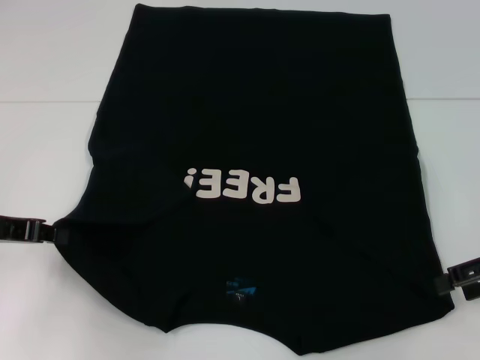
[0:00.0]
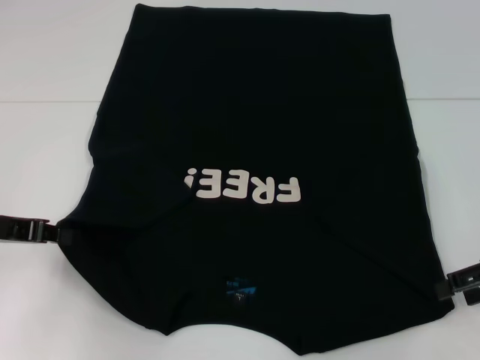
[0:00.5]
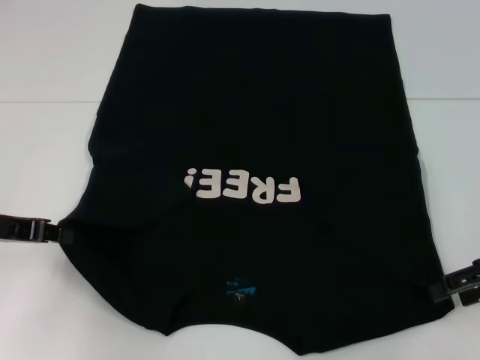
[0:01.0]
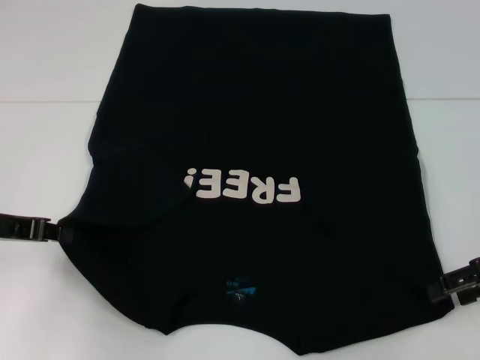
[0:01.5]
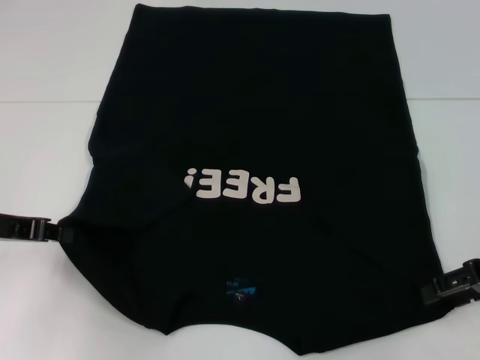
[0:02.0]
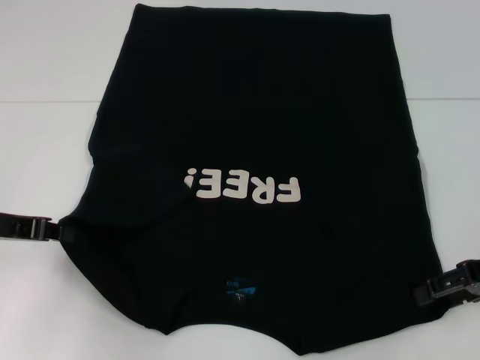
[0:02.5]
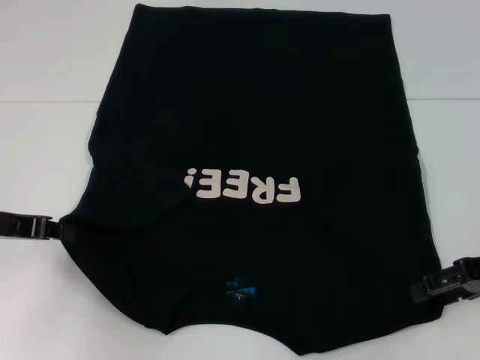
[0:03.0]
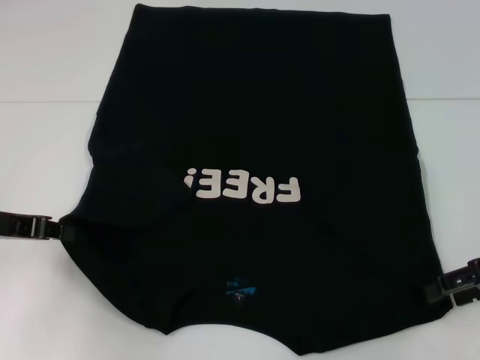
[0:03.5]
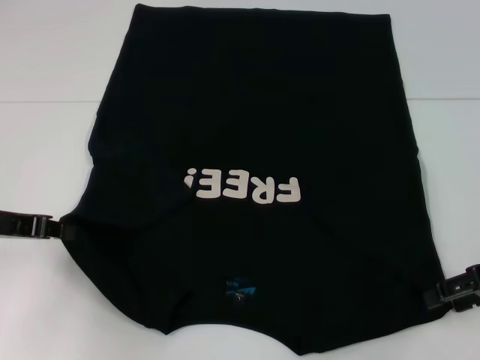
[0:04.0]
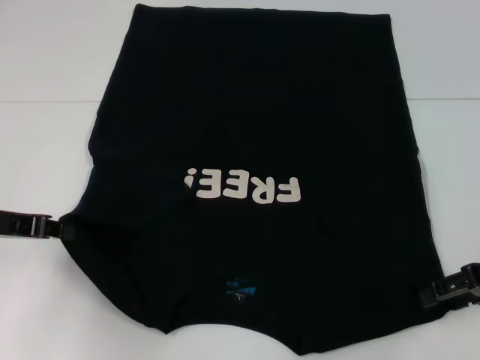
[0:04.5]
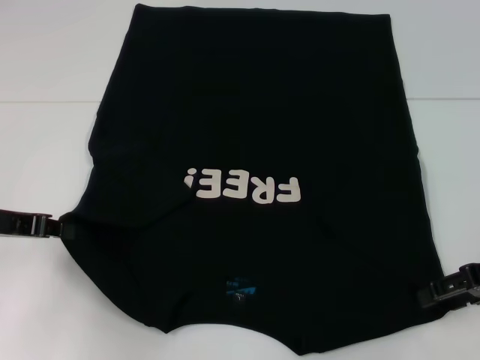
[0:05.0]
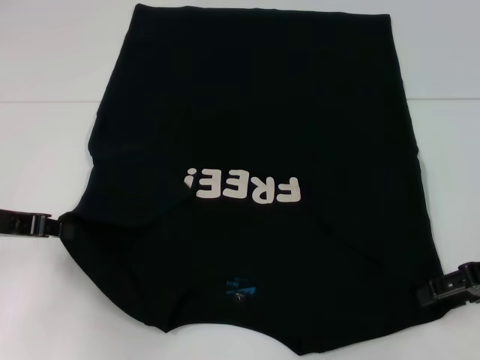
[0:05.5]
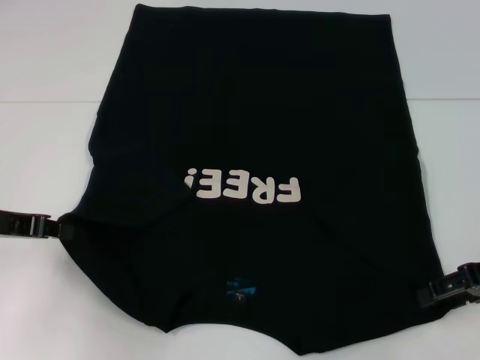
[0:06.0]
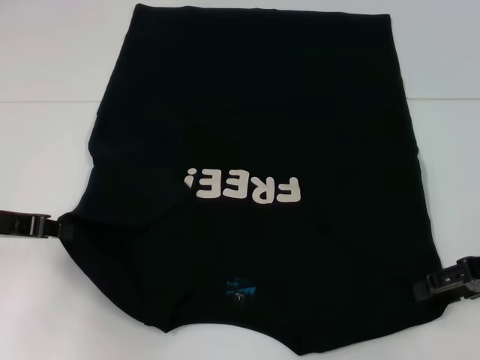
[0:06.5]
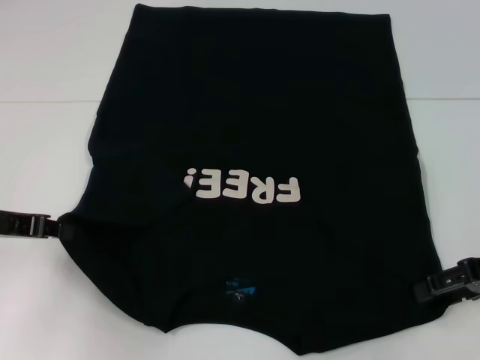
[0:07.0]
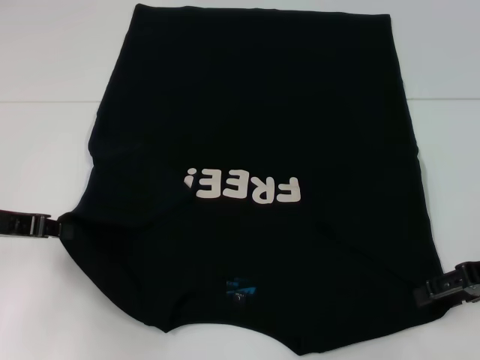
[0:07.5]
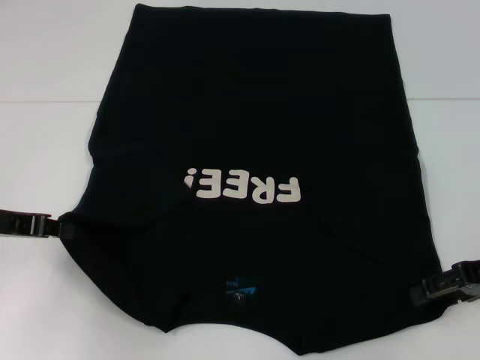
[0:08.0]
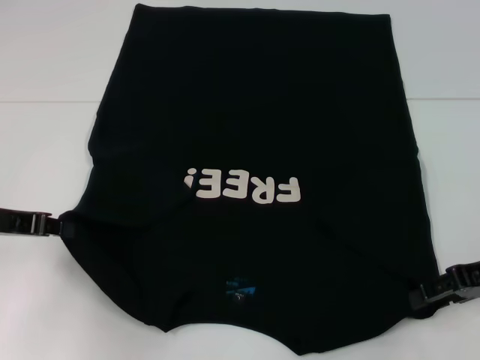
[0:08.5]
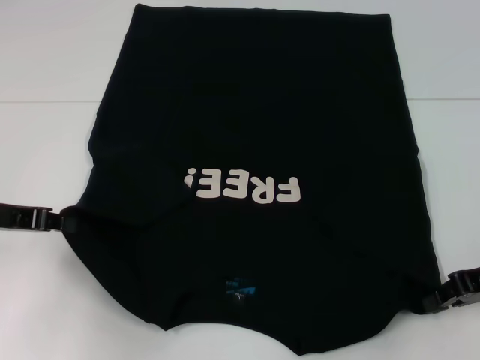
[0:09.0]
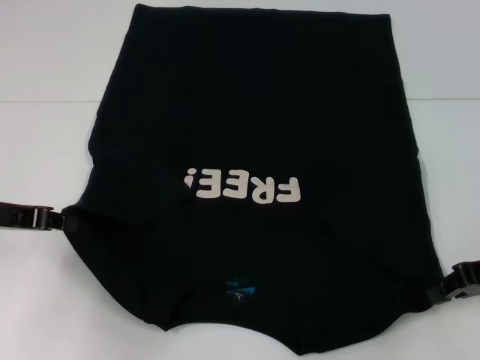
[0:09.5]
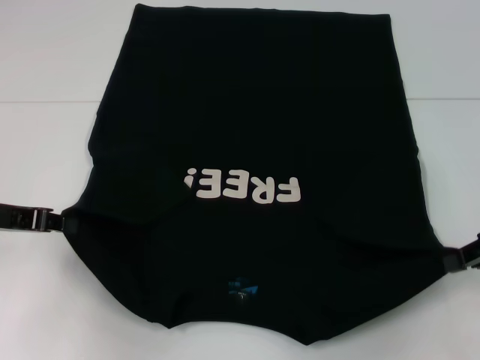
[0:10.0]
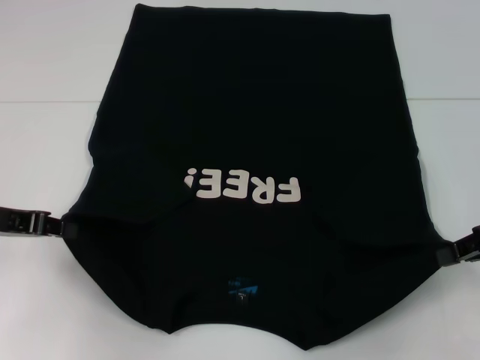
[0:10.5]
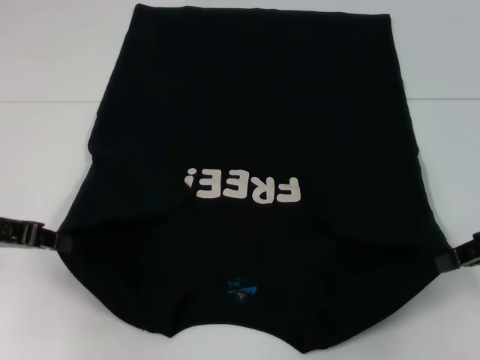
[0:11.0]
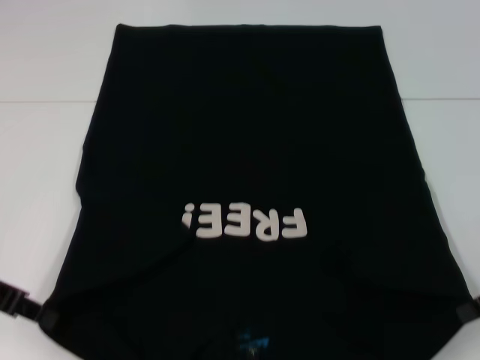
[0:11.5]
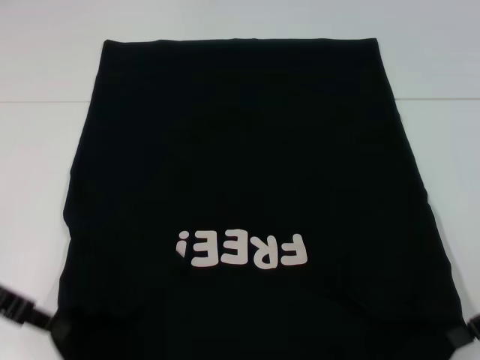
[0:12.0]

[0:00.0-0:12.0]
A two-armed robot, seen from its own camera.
Step, 0:00.0 to 0:09.5: Grab the bottom left corner with your left hand.
Step, 0:00.0 to 0:09.5: Grab the bottom right corner with your right hand.
0:00.0 to 0:02.0: The grippers move only a little.
0:02.0 to 0:08.0: Neither gripper changes place.
0:08.0 to 0:10.0: The right gripper closes its fingers.

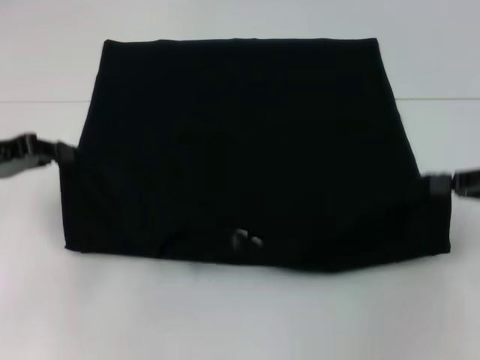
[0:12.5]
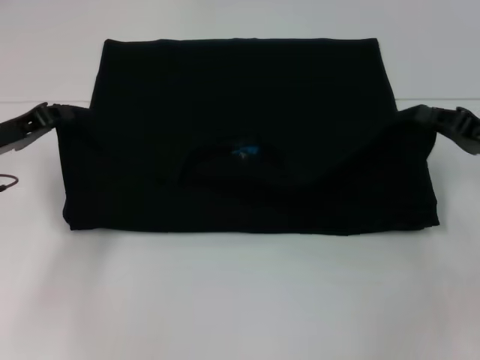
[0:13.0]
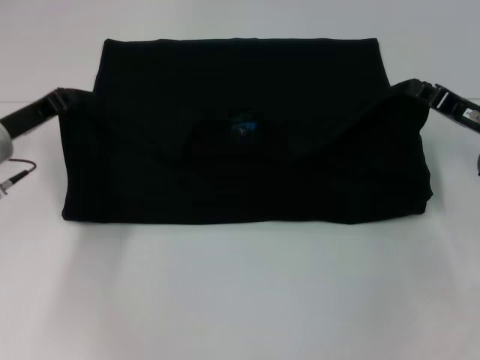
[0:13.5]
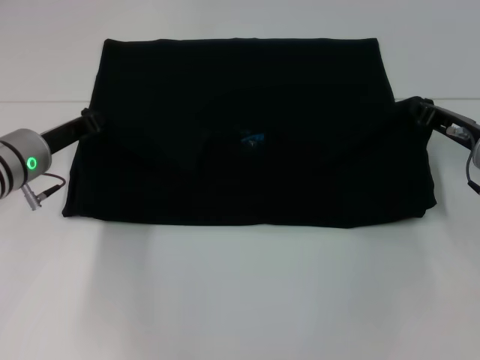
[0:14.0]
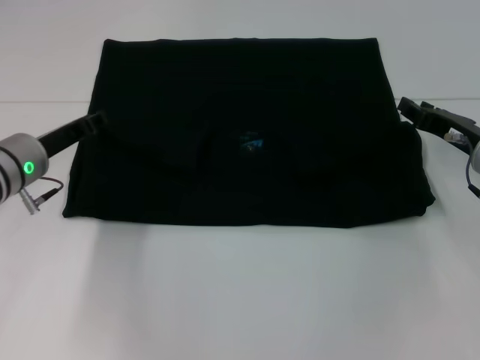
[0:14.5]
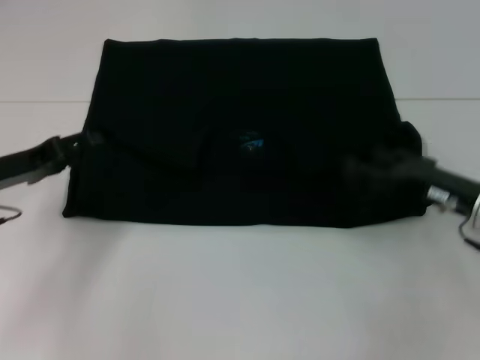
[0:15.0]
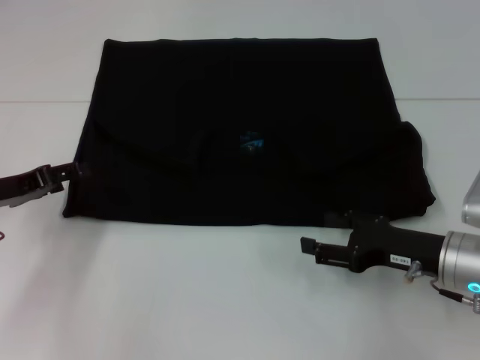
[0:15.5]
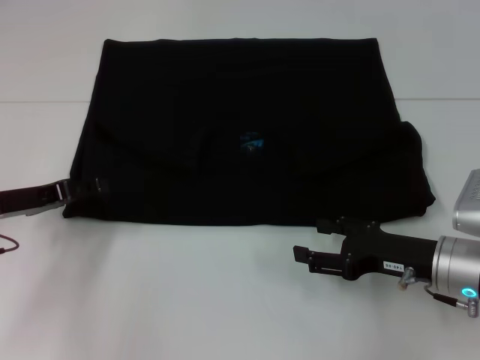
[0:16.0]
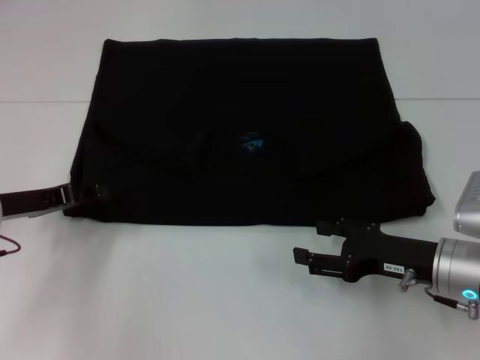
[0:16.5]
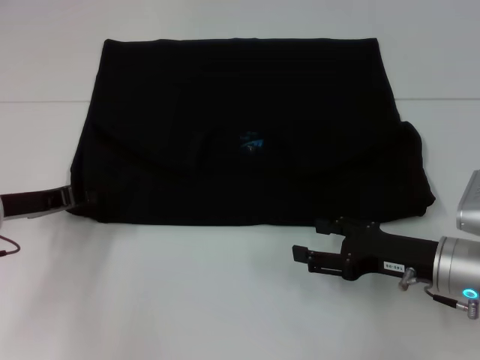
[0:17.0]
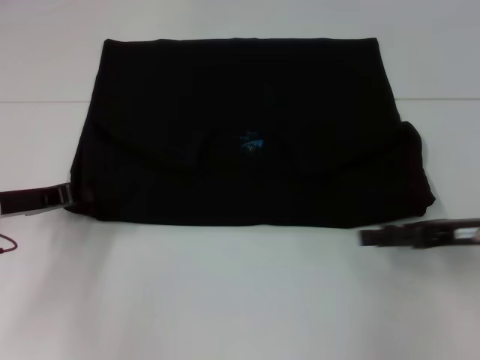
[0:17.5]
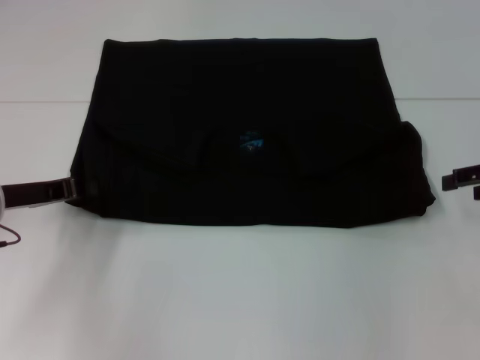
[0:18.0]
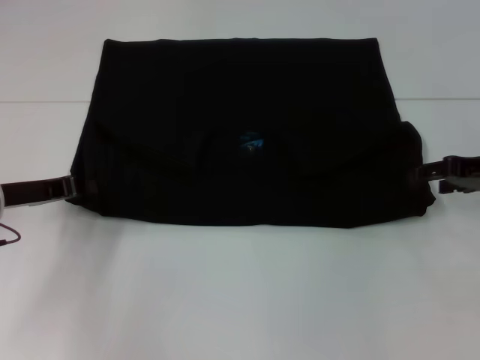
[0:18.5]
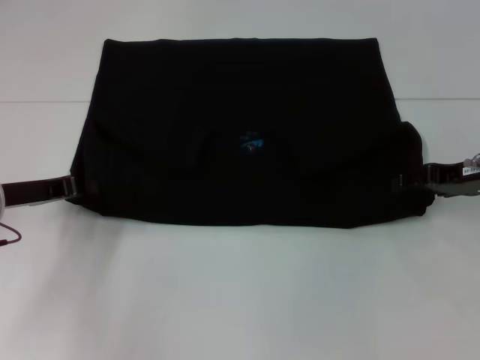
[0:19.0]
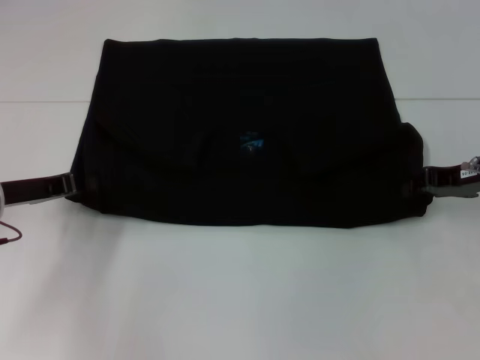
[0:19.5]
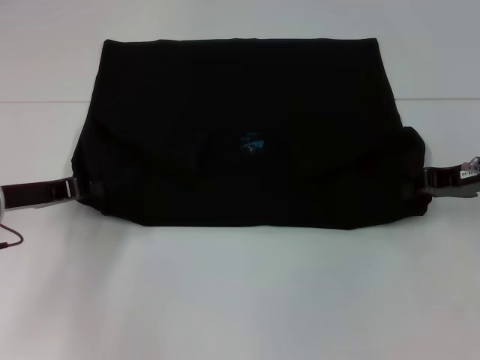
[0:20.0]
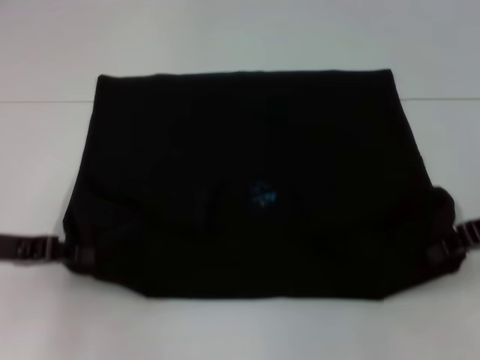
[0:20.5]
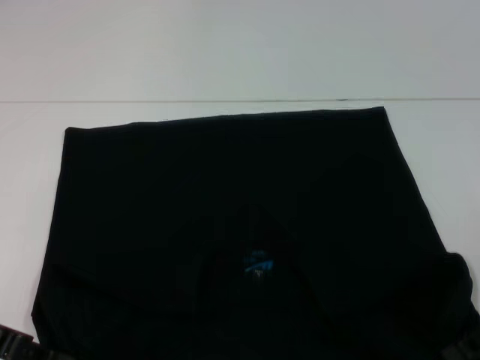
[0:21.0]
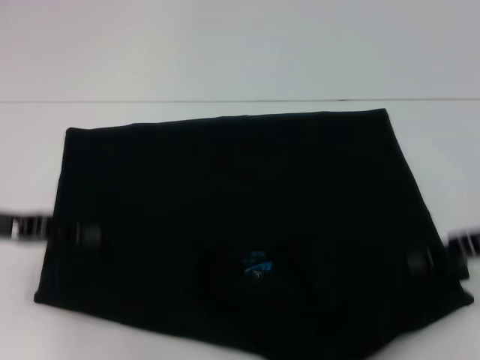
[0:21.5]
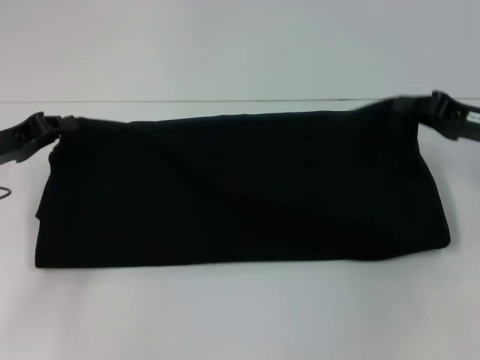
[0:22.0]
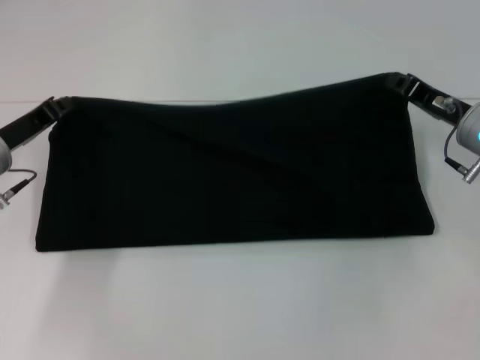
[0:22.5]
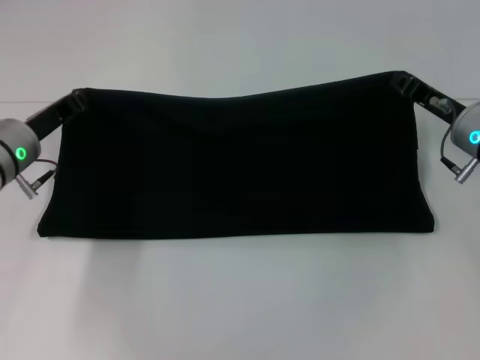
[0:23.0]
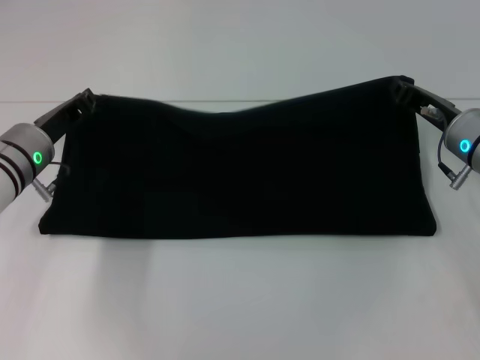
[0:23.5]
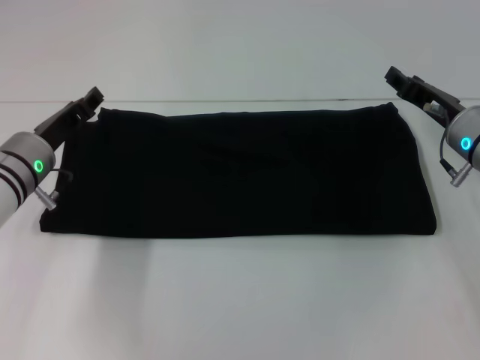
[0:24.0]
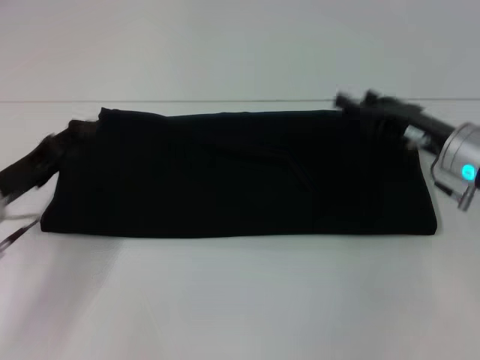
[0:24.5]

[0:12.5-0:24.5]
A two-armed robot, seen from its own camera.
Step, 0:12.5 to 0:15.0: Fold the clothes with your left hand.
Step, 0:12.5 to 0:15.0: Fold the clothes with your right hand.
Step, 0:15.5 to 0:21.0: Pull the clothes with your left hand.
Step, 0:15.5 to 0:21.0: Pull the clothes with your right hand.
0:12.5 to 0:14.5: The left gripper shifts roughly 10 cm to the right and downward. The right gripper heads to the left, forward and downward, covering roughly 10 cm.
0:14.5 to 0:16.5: The right gripper shifts some 10 cm backward, and opens up; the left gripper shifts by about 5 cm, and opens.
0:16.5 to 0:18.5: The right gripper shifts some 15 cm forward, upward and to the right, while the left gripper closes its fingers.
0:18.5 to 0:20.5: The left gripper changes place by about 5 cm, while the right gripper closes.
0:20.5 to 0:22.5: The right gripper shifts roughly 10 cm forward and to the left. The left gripper is displaced forward by approximately 5 cm.
0:22.5 to 0:24.5: The left gripper moves backward, some 5 cm, and opens, while the right gripper opens up.

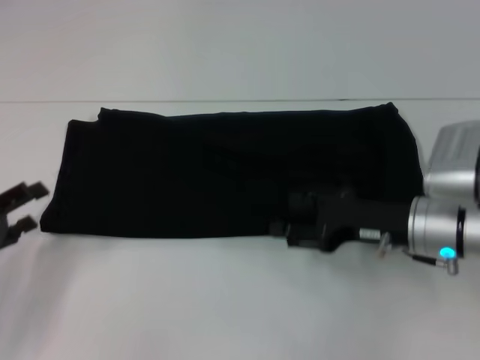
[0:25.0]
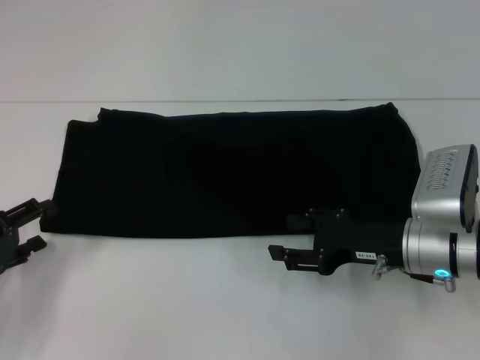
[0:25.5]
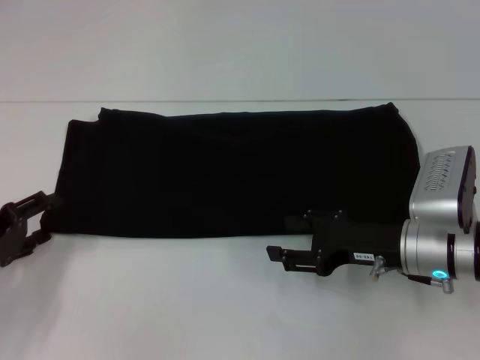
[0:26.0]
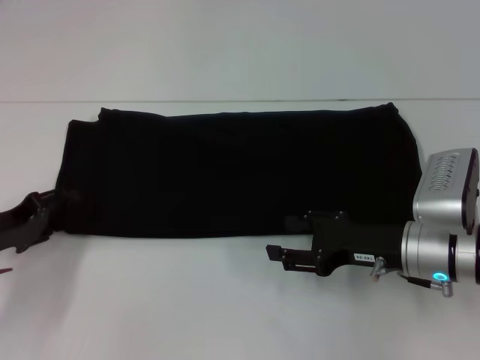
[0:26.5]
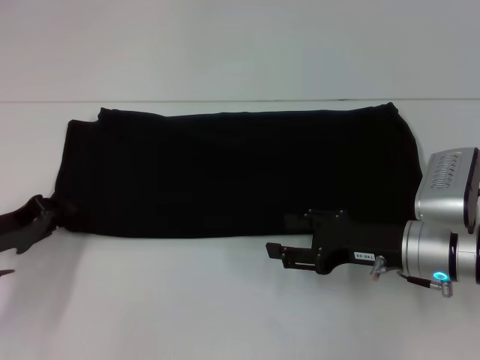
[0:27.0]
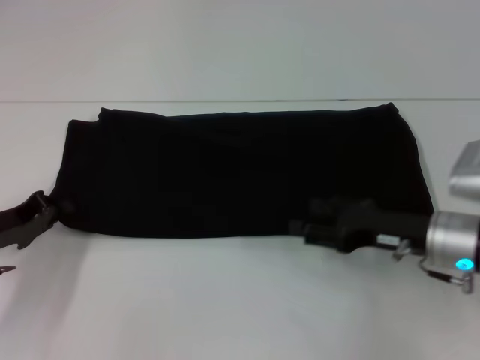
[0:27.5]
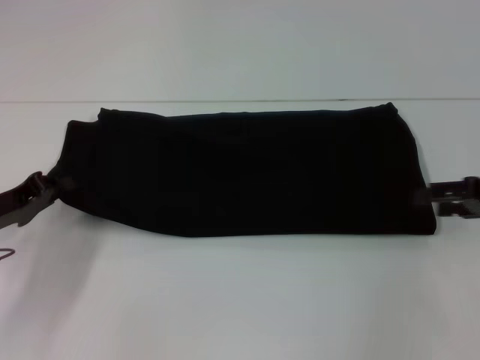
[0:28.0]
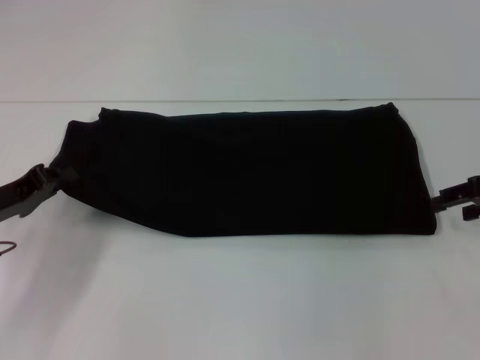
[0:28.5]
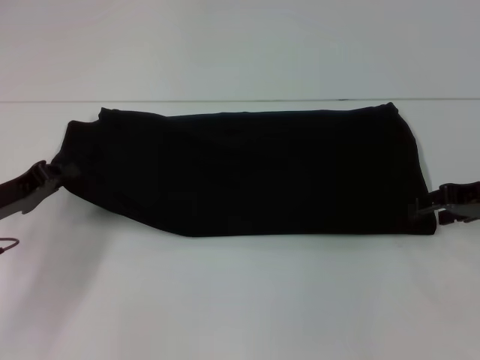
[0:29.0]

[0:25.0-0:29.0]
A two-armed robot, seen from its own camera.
0:25.0 to 0:27.0: The left gripper changes place by about 5 cm.
0:27.0 to 0:29.0: The right gripper goes some 15 cm to the right, upward and forward. The left gripper closes its fingers.
